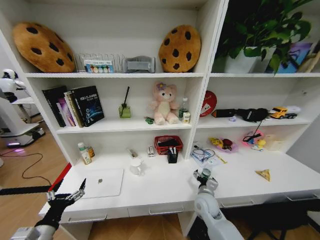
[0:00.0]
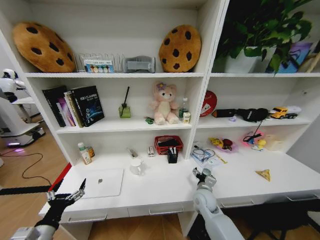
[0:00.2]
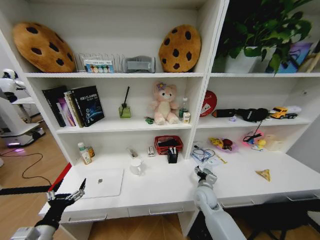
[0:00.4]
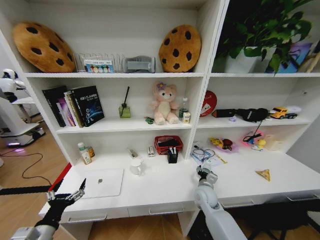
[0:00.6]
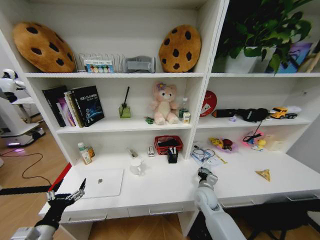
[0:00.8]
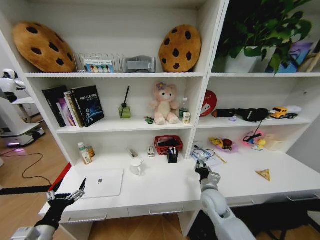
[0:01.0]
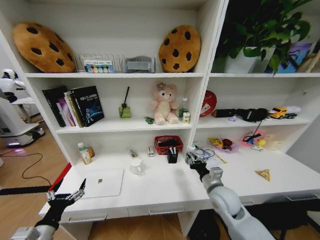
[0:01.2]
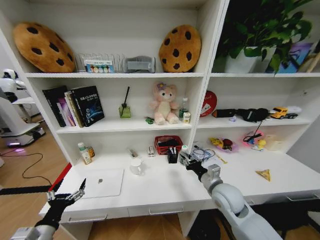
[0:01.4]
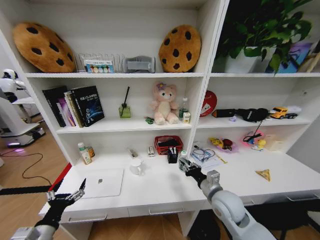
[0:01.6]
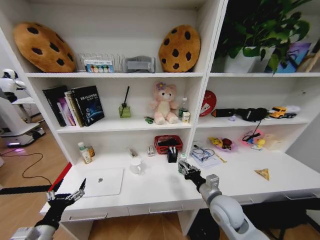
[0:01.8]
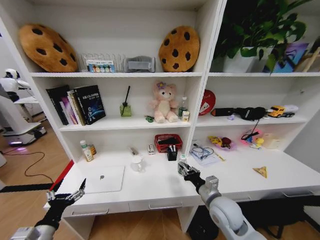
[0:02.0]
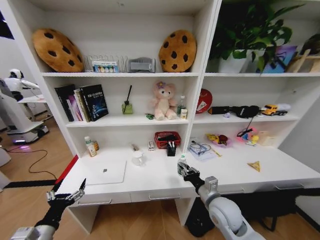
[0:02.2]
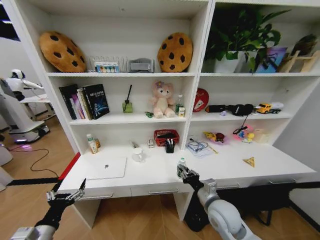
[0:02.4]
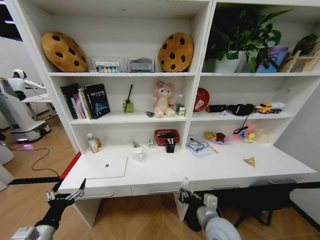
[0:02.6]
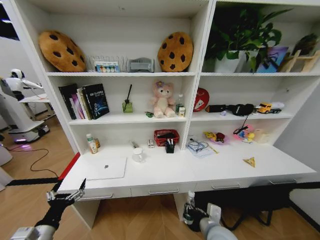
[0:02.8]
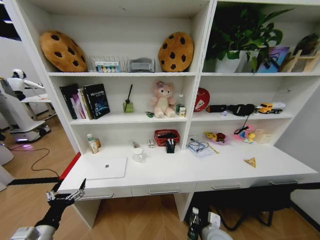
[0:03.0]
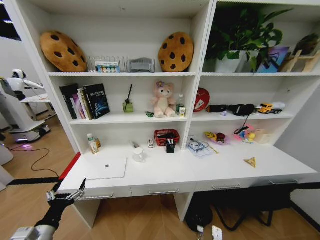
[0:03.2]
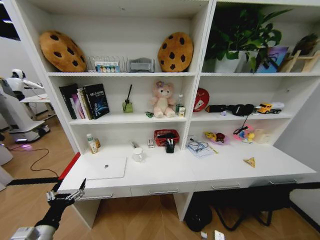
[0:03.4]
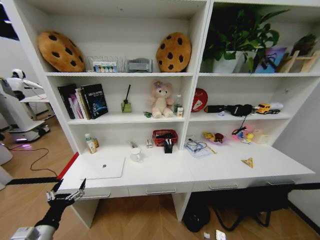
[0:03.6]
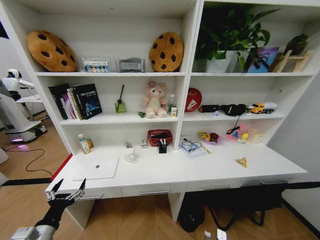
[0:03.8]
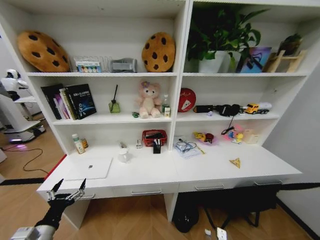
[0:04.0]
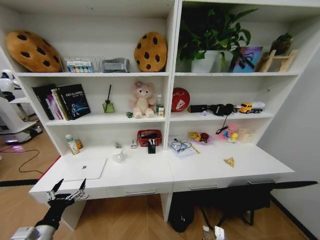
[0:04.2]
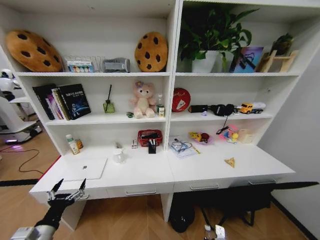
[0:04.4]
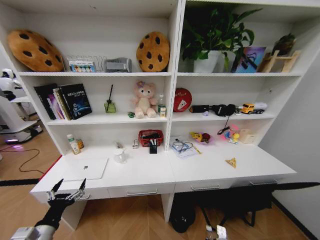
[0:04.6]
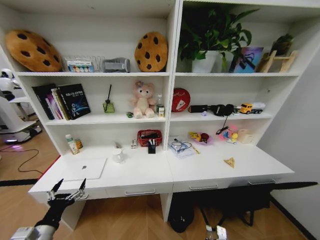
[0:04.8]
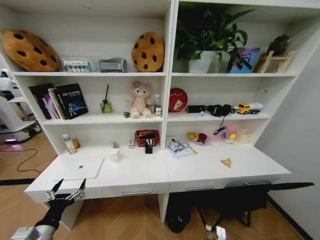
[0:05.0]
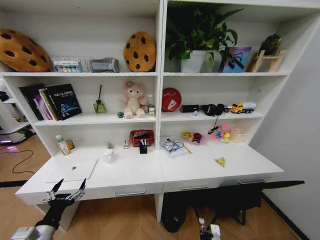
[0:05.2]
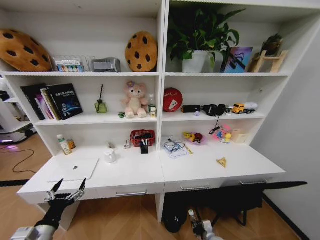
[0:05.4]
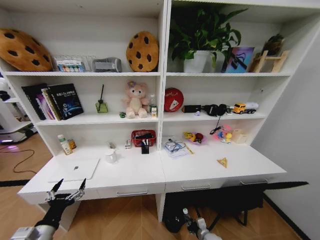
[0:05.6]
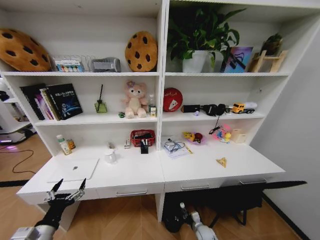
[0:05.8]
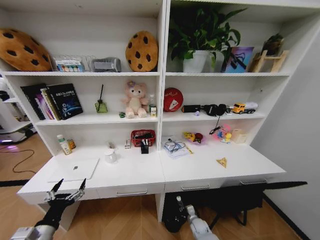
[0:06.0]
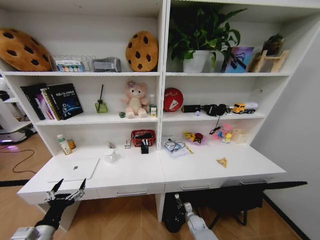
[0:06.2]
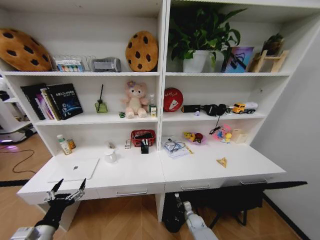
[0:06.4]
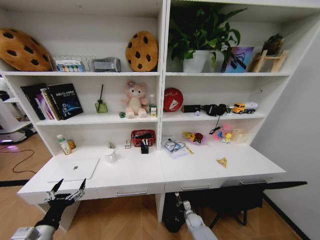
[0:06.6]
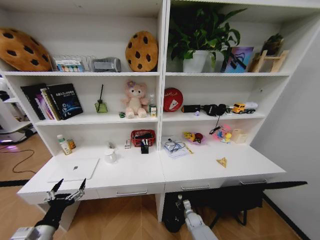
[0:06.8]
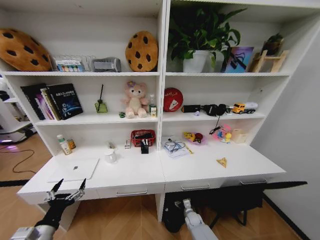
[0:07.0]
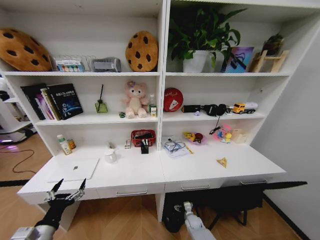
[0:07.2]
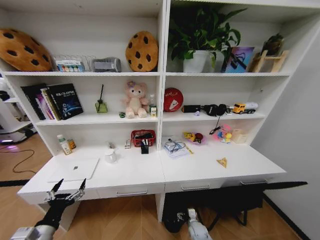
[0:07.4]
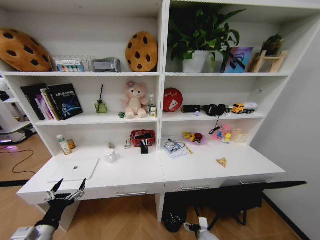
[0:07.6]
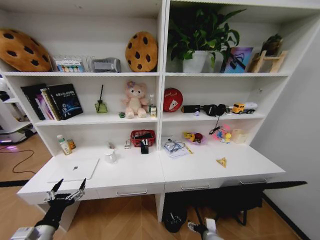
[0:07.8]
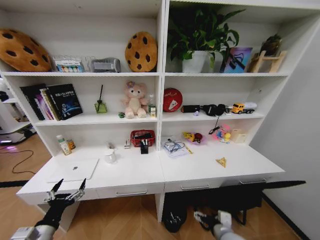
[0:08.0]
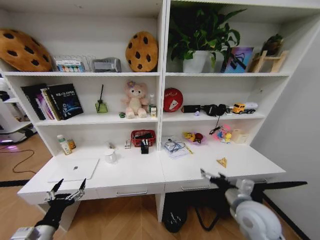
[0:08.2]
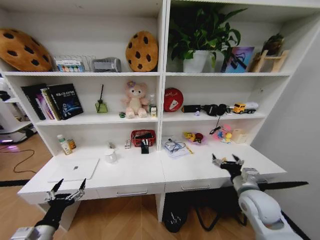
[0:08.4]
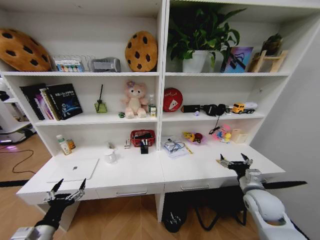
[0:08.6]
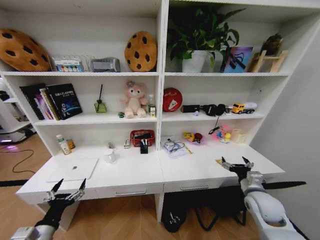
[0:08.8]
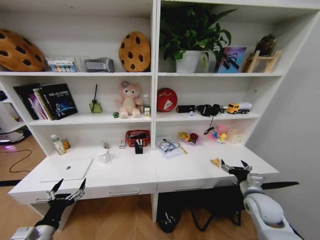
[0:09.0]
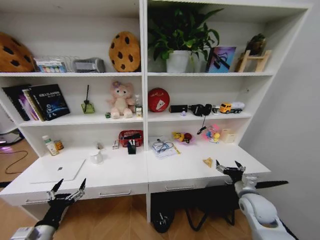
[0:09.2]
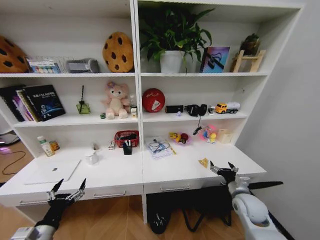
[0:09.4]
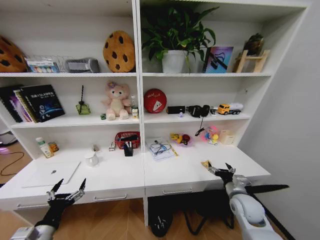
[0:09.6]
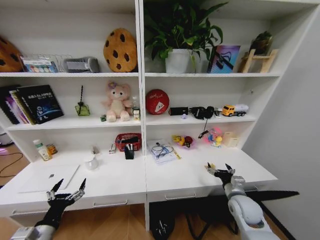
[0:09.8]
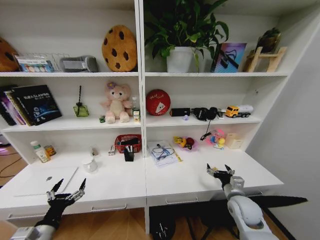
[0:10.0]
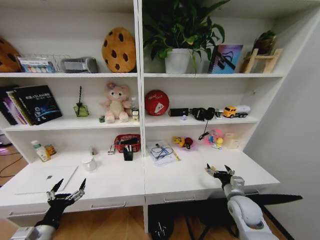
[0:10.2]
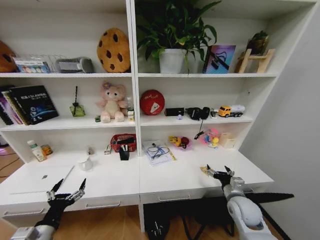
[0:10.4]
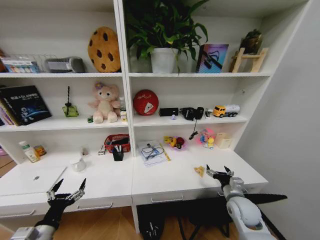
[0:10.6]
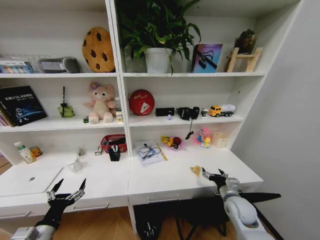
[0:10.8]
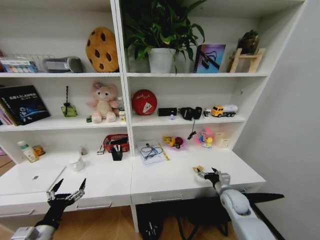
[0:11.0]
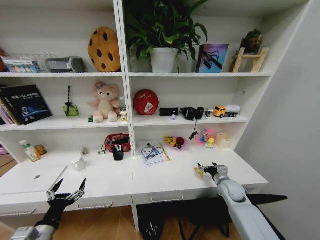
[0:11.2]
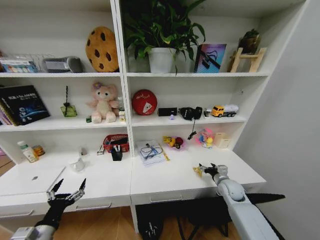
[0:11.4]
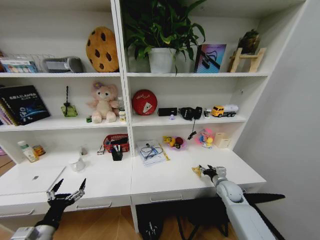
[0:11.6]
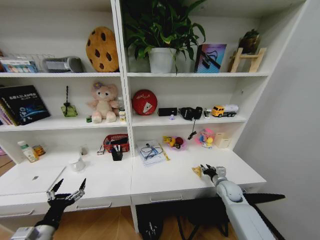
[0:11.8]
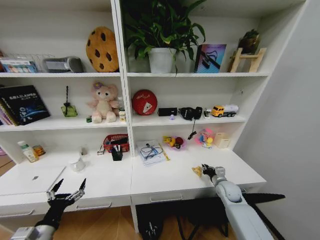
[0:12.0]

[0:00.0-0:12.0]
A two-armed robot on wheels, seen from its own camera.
Task of the whole recording: Organize the objects on the table.
0:00.0 to 0:01.6: The right gripper is displaced upward by roughly 10 cm, and closes up.
0:01.6 to 0:03.0: The right gripper shifts some 15 cm downward and backward.
0:03.0 to 0:04.4: The right gripper is displaced downward and to the right by some 15 cm.
0:04.4 to 0:06.0: The right gripper moves downward and forward, roughly 15 cm.
0:06.0 to 0:07.6: The right gripper heads backward and upward, covering some 10 cm, and opens up.
0:07.6 to 0:09.0: The right gripper shifts approximately 30 cm upward and to the right.
0:09.0 to 0:10.4: The right gripper goes roughly 5 cm to the left.
0:10.4 to 0:12.0: The right gripper travels forward and downward by about 10 cm, and closes its fingers.

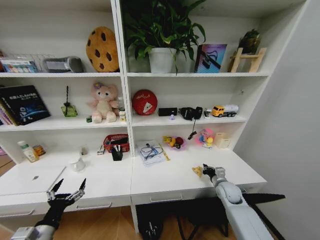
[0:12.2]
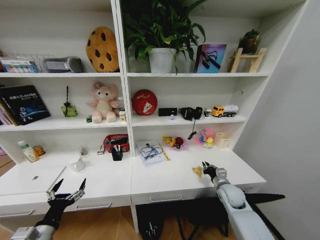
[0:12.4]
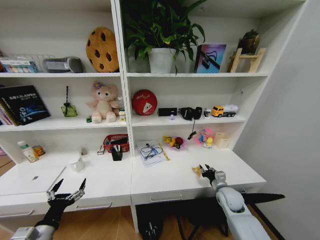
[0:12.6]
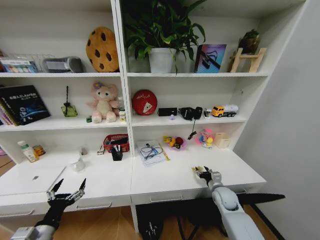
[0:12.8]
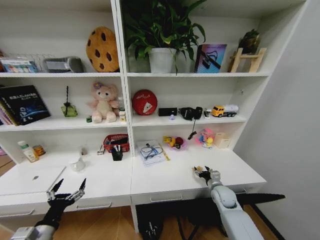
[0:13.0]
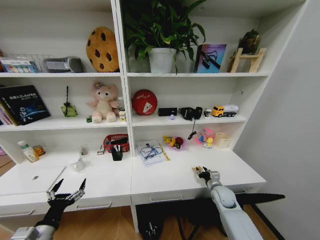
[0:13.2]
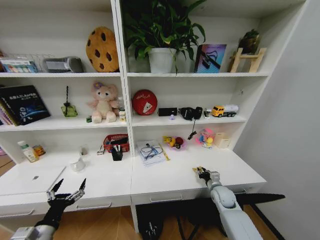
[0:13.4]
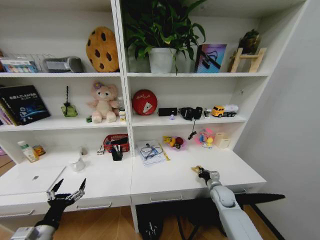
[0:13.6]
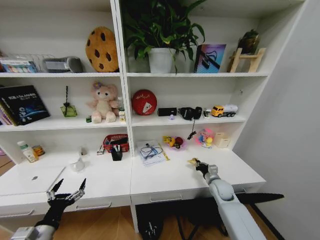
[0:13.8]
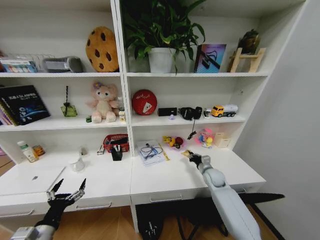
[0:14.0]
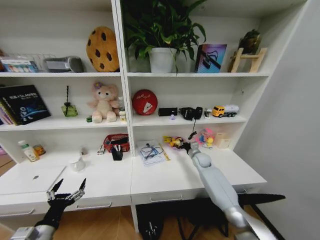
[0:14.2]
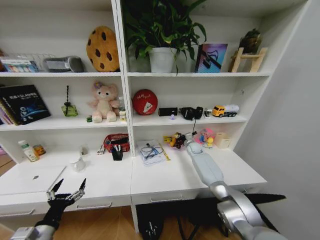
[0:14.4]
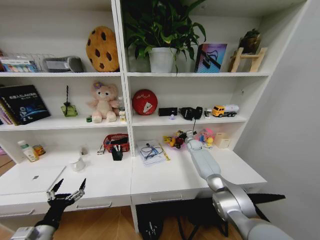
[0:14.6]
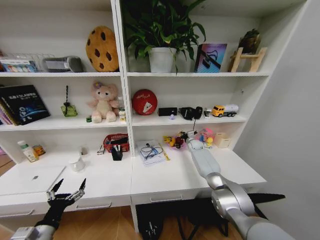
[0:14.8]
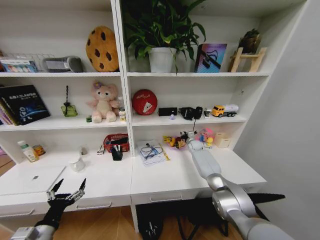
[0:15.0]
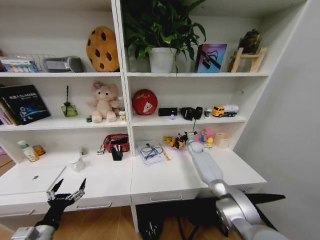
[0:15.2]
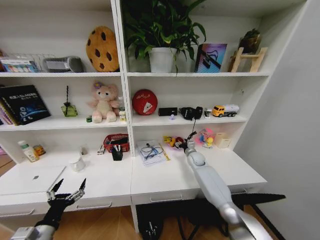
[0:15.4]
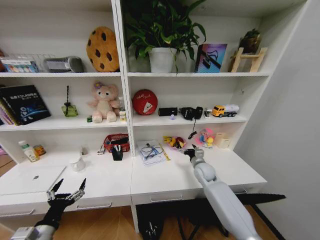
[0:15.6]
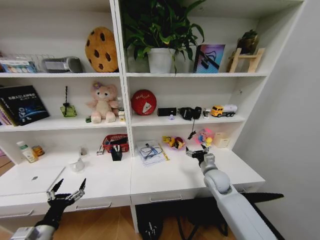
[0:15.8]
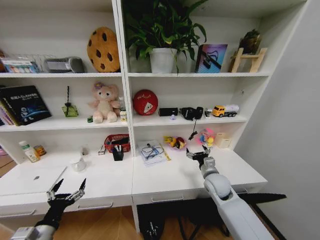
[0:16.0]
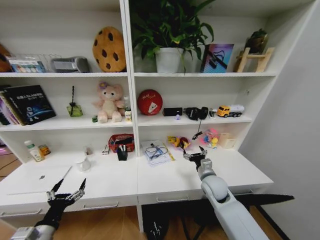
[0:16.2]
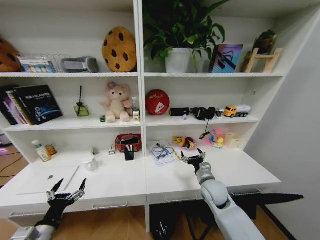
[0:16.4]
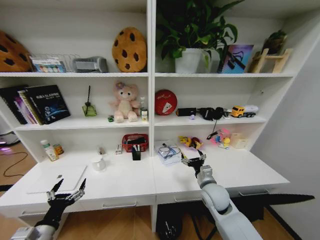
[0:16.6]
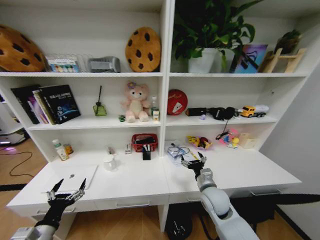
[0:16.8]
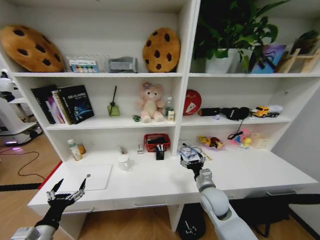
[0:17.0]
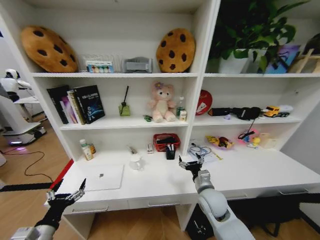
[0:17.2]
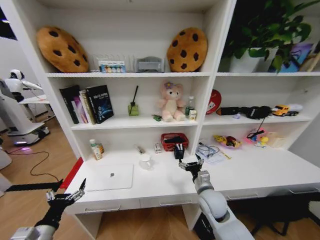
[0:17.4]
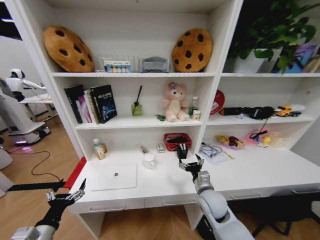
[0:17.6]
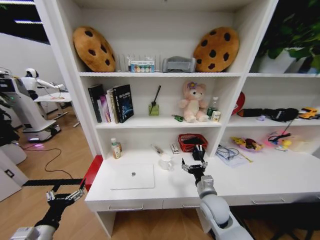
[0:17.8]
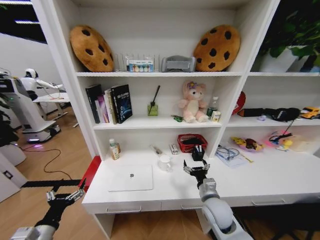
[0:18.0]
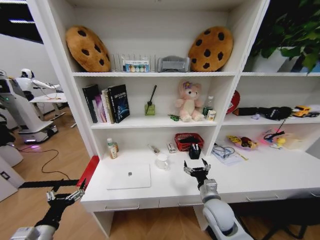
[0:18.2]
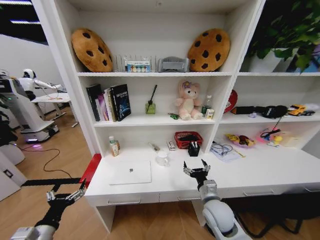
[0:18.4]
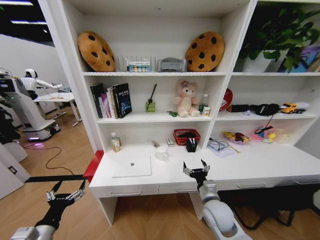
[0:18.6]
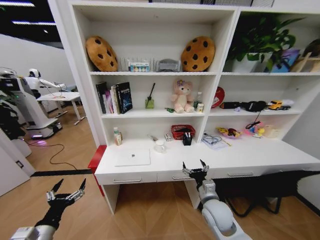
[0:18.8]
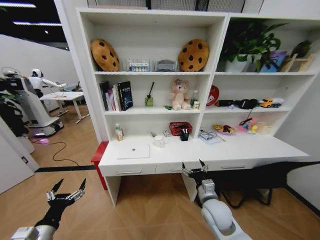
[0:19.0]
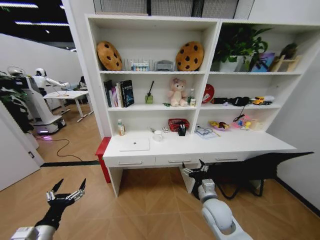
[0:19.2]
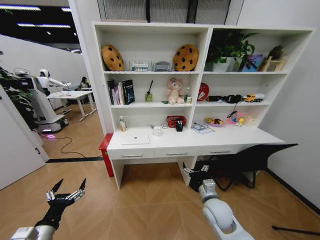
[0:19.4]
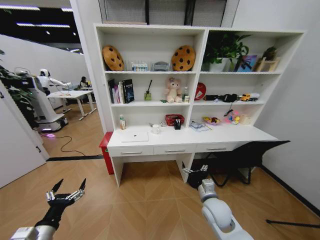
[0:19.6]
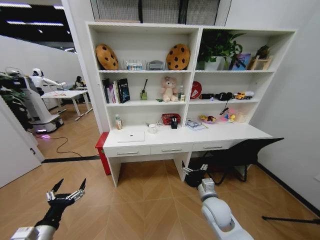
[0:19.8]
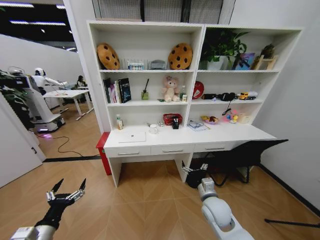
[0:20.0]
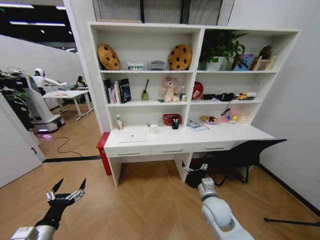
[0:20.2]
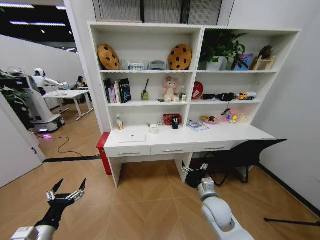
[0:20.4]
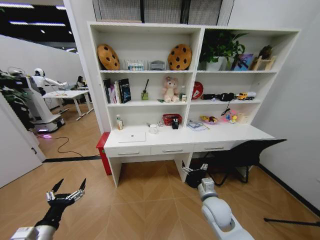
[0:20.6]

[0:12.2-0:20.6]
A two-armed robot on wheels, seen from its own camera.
Task of the whole recording: Organize the objects on the table.
0:12.2 to 0:13.6: The right gripper opens and closes again.
0:13.6 to 0:15.0: The right gripper is displaced forward by approximately 30 cm.
0:15.0 to 0:16.4: The right gripper heads backward, covering some 30 cm, and opens its fingers.
0:16.4 to 0:17.8: The right gripper moves backward, some 5 cm.

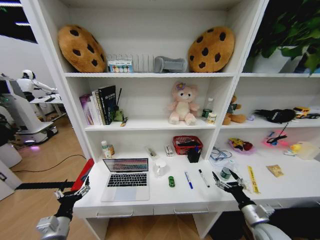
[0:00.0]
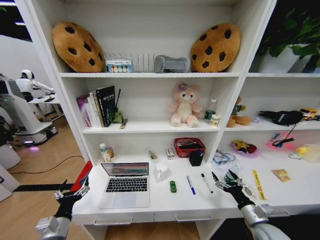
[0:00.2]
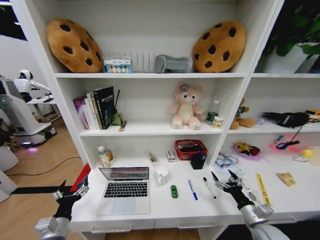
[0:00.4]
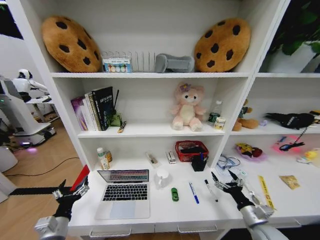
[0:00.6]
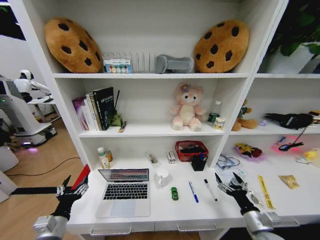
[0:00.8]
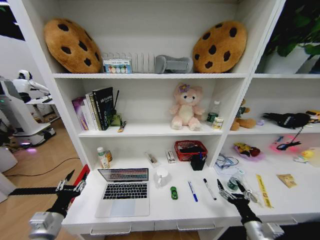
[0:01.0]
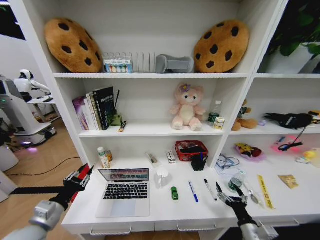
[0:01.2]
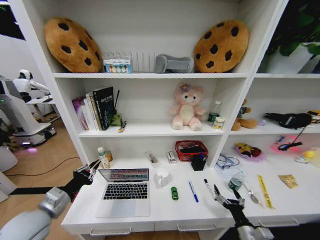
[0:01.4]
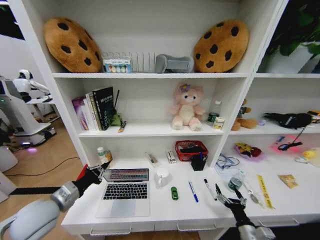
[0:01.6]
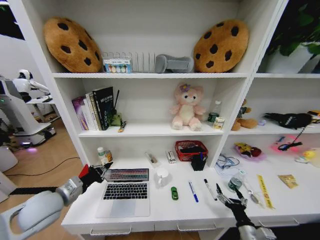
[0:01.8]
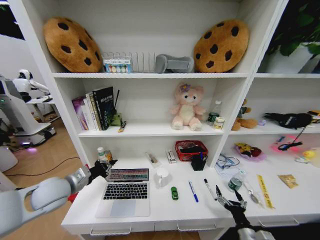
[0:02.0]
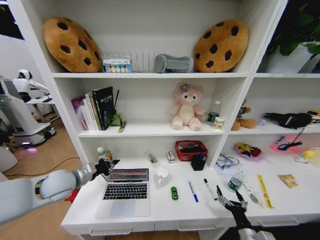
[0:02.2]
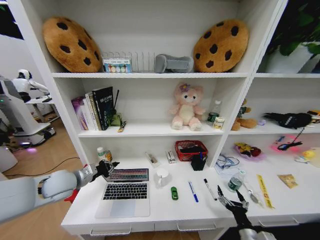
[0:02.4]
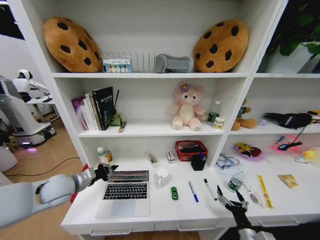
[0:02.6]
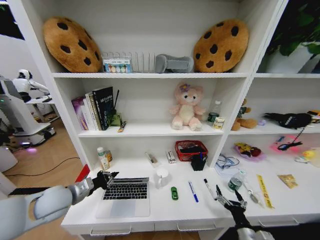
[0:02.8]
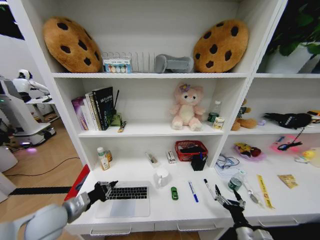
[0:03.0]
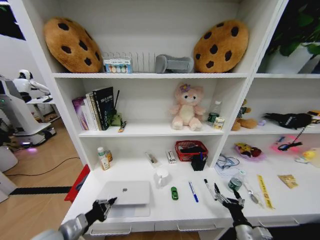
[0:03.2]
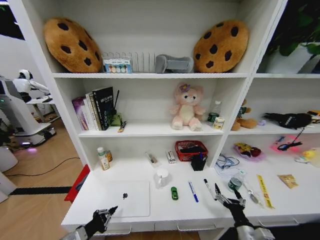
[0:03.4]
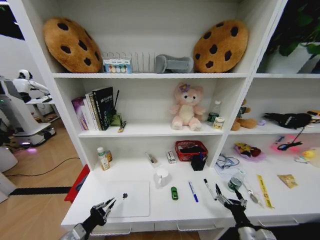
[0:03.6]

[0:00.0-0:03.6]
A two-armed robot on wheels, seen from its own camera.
Task of the whole recording: Organize the objects on the table.
0:00.0 to 0:01.8: The left gripper travels upward and forward by about 15 cm, and closes; the right gripper travels backward by about 5 cm.
0:01.8 to 0:03.6: The left gripper heads downward and backward, covering roughly 15 cm.
